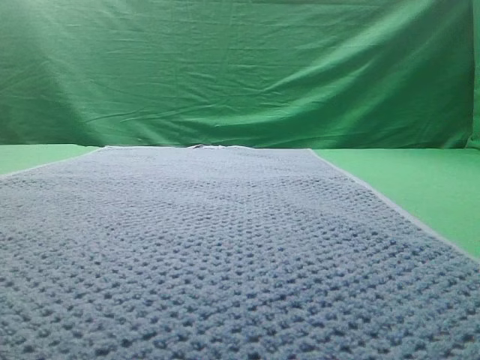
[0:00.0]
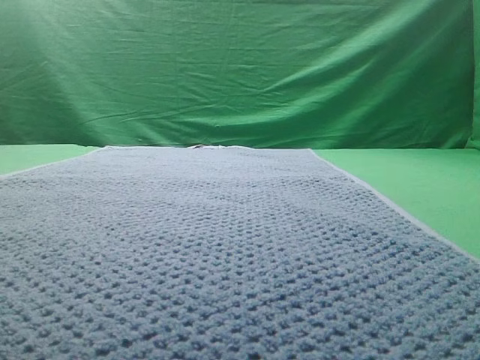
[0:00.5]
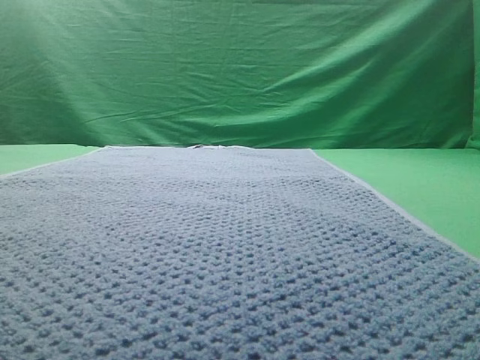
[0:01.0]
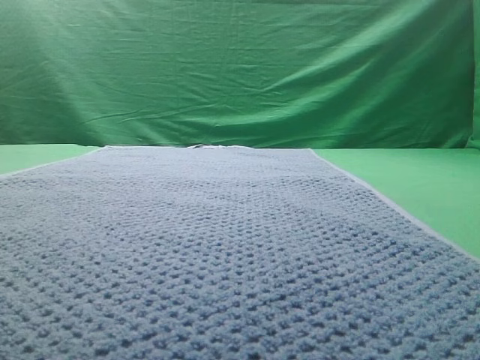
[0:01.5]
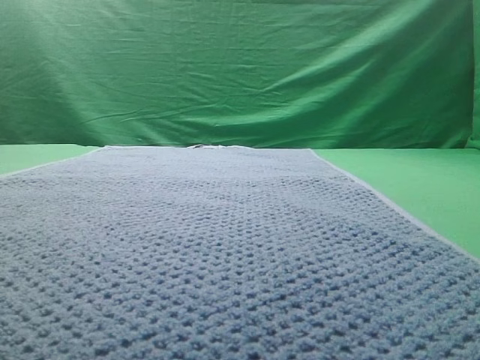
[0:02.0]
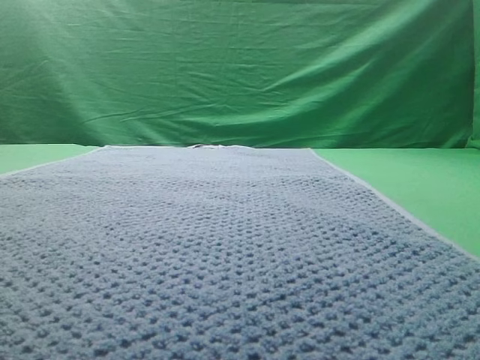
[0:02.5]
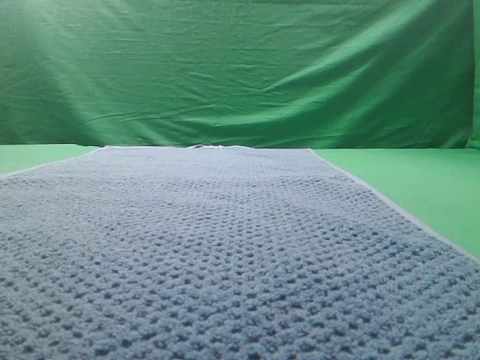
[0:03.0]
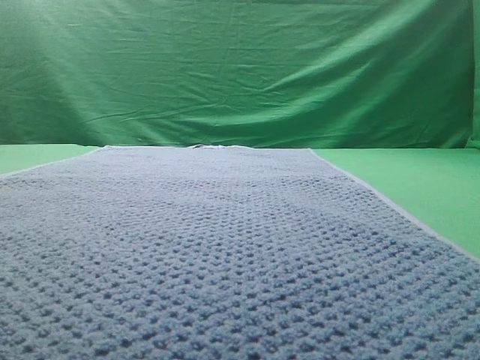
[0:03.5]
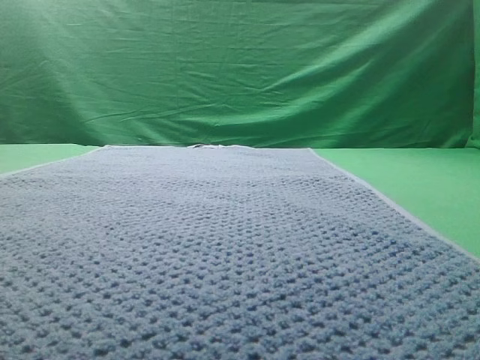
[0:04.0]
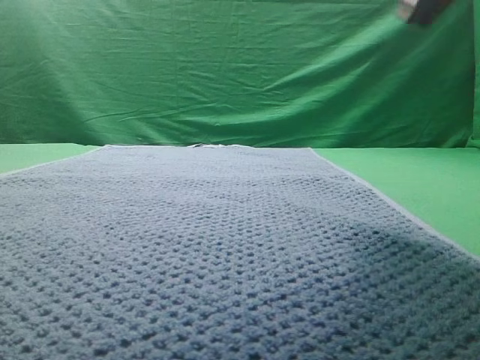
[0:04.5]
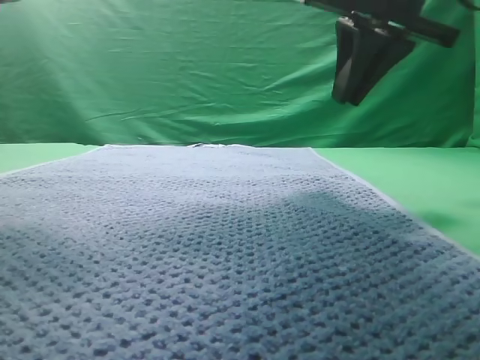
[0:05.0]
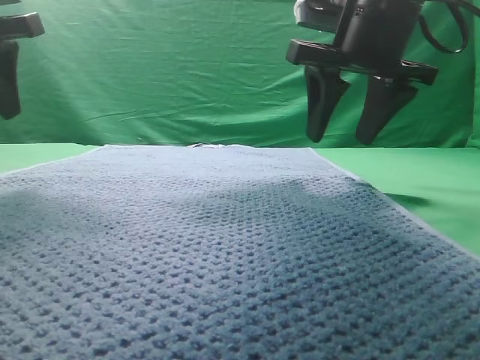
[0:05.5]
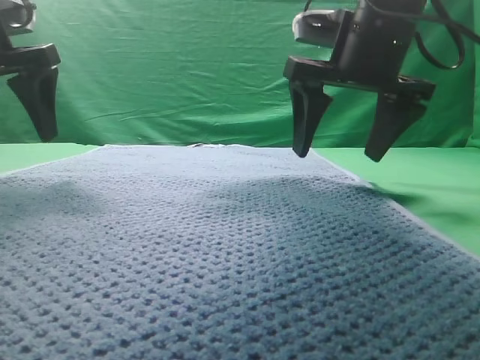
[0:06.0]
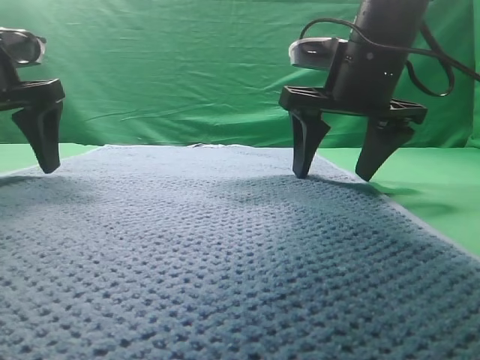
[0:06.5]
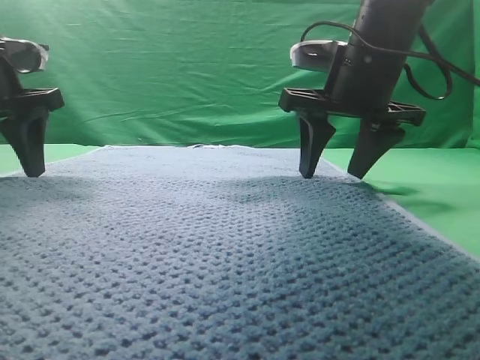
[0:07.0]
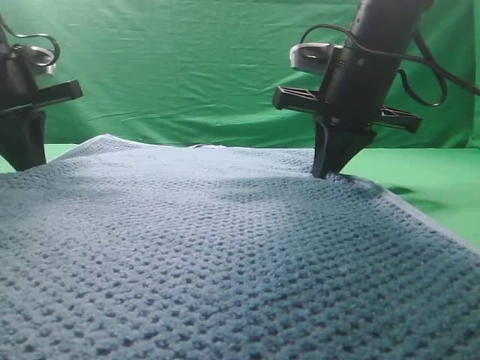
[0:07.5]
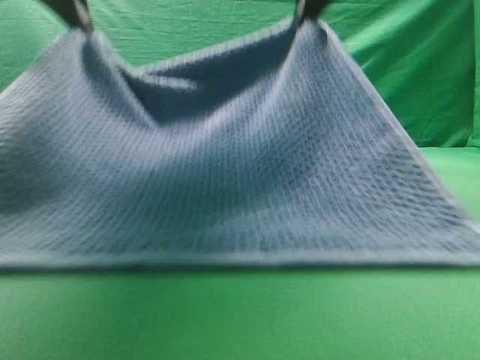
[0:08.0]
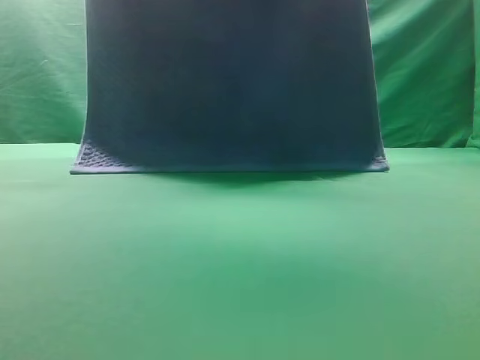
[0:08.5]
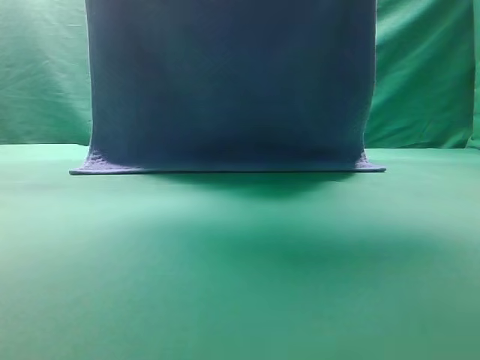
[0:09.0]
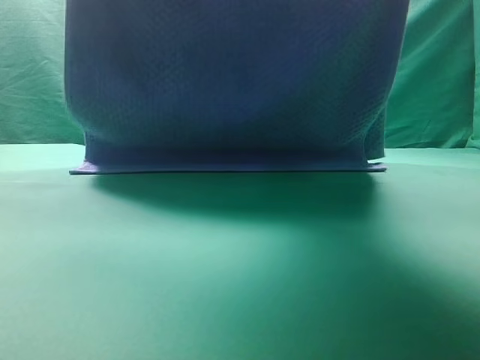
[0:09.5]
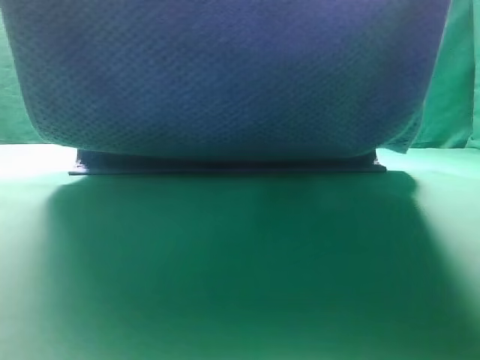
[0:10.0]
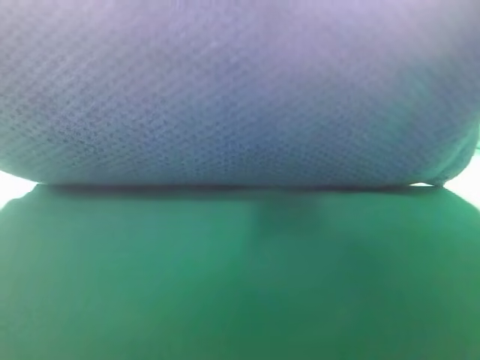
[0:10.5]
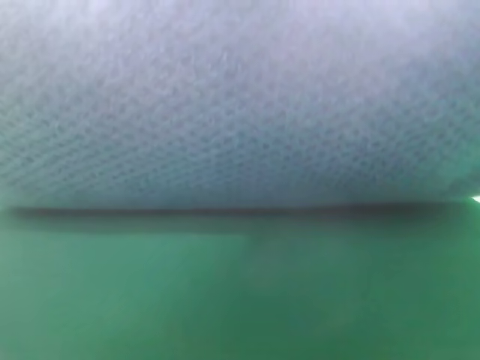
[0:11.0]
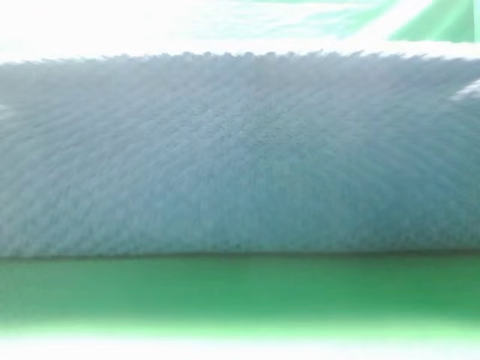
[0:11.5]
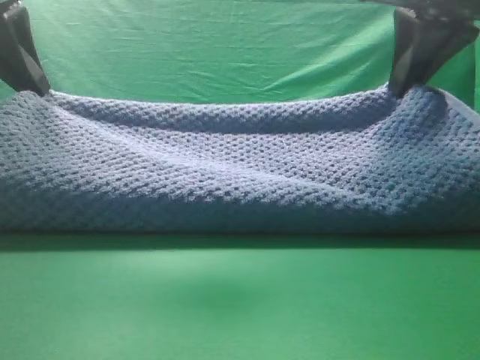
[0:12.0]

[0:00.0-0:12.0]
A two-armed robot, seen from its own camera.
Task of the whole recording: fold the towel on the table twice.
Step, 0:00.0 to 0:08.0: pick up the towel with two arm.

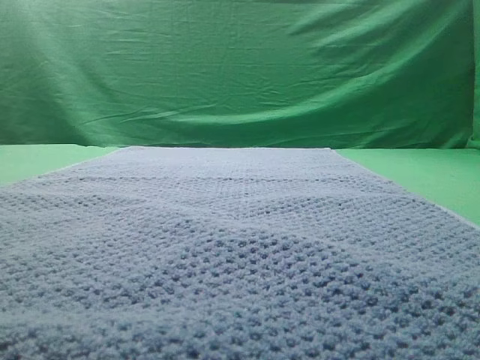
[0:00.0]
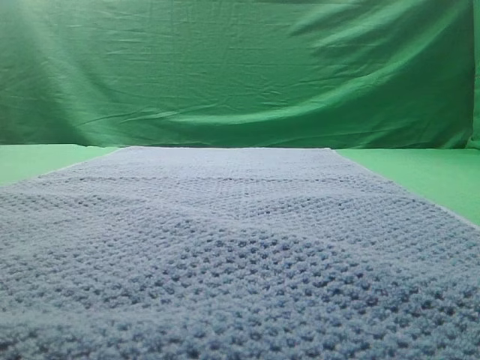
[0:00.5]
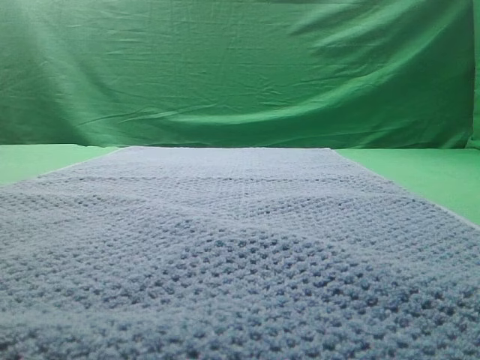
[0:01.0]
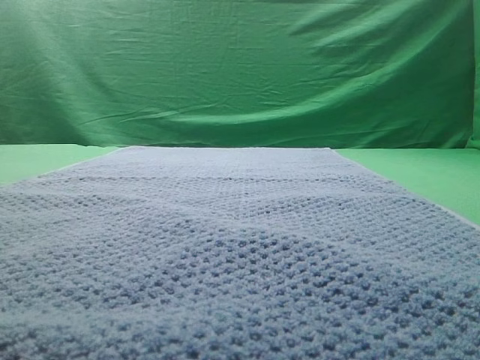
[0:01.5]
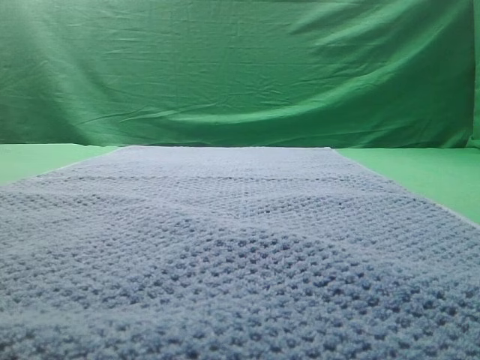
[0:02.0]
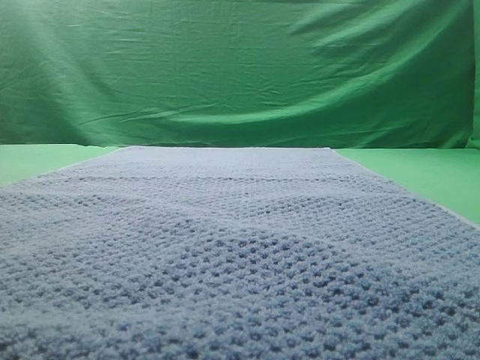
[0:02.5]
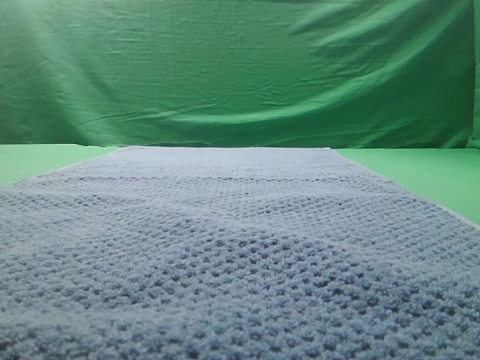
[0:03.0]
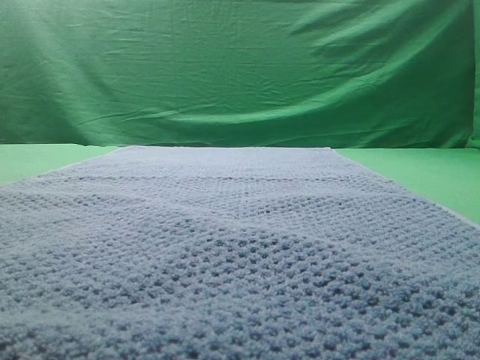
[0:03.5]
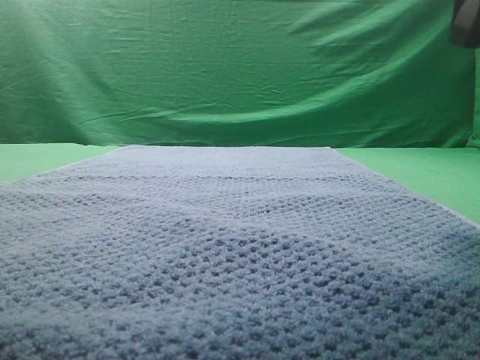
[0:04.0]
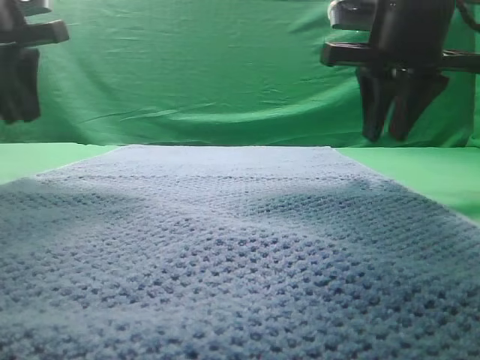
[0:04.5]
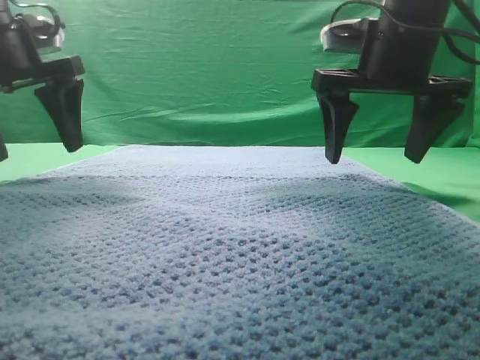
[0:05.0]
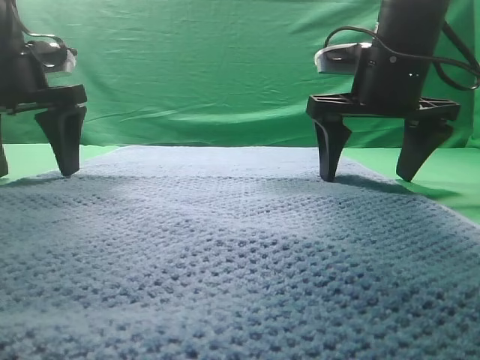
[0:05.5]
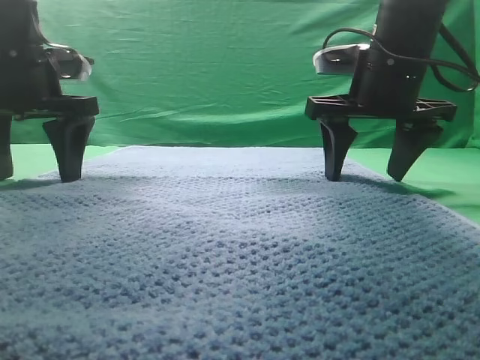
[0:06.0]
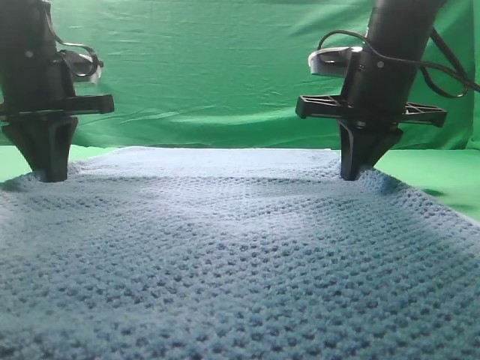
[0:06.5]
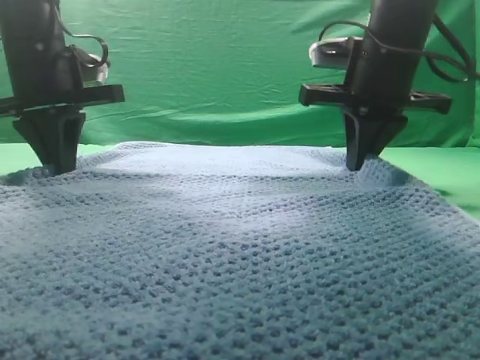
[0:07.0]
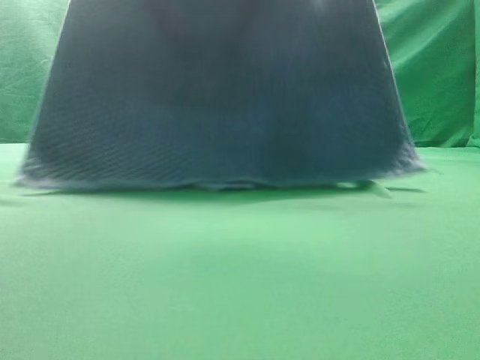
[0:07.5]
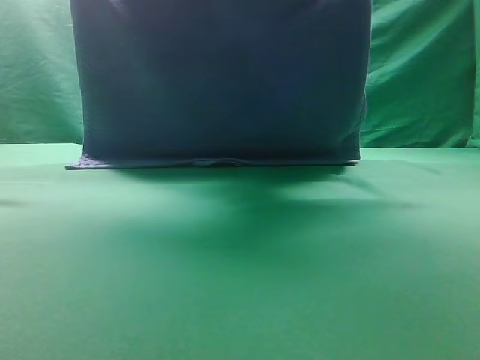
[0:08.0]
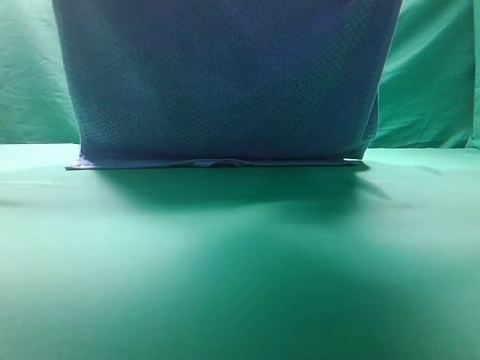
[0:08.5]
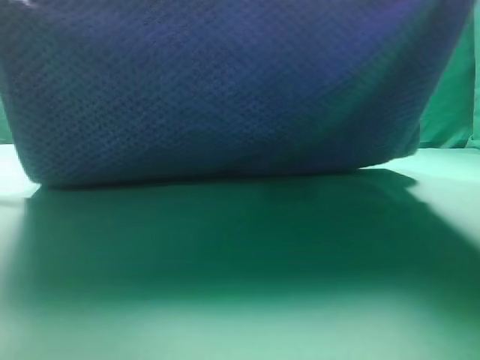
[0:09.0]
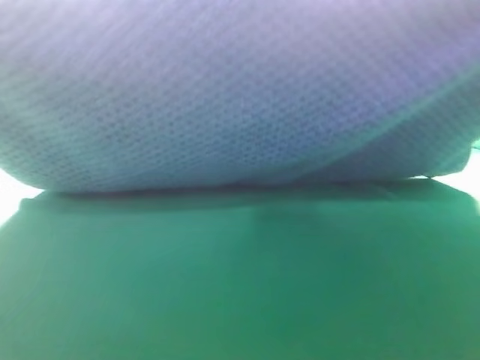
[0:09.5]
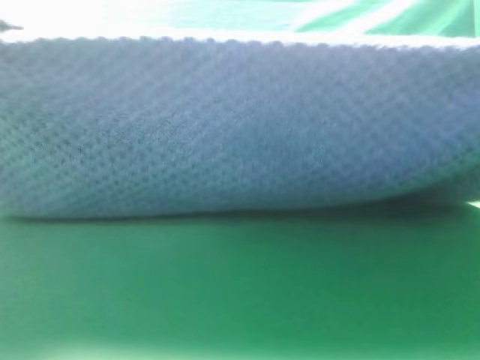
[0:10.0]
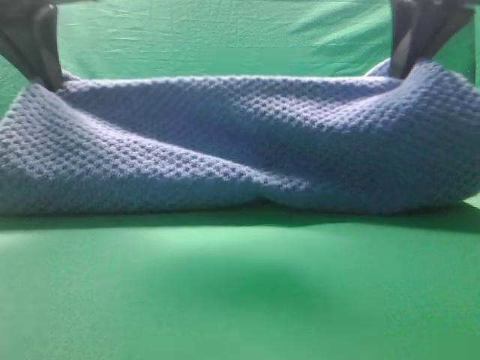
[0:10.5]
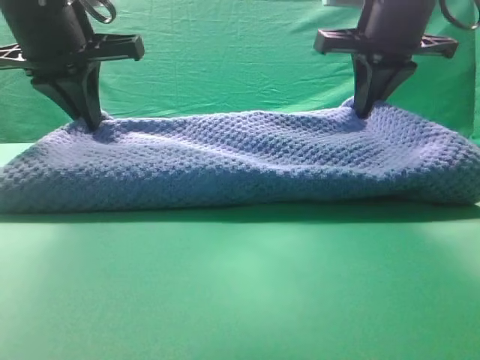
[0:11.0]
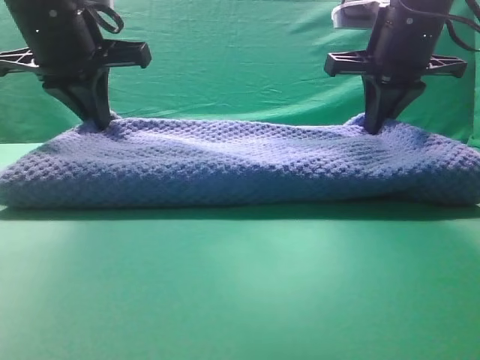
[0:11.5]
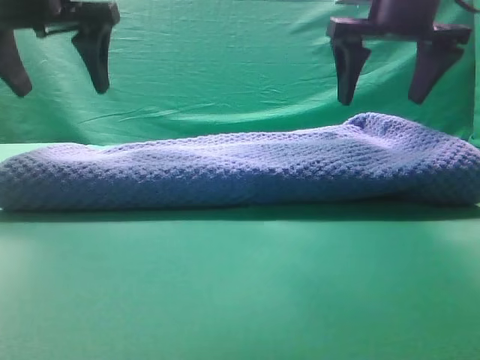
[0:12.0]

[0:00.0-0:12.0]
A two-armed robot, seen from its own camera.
Task of the whole recording: fold the towel on the table twice.
Step, 0:00.0 to 0:07.5: pick up the towel with two arm.
Step, 0:08.0 to 0:12.0: Fold the towel twice on the table.
